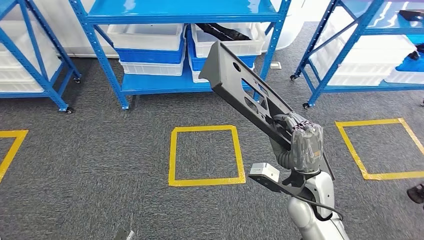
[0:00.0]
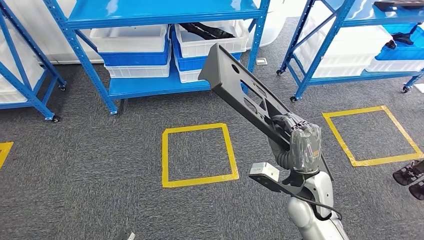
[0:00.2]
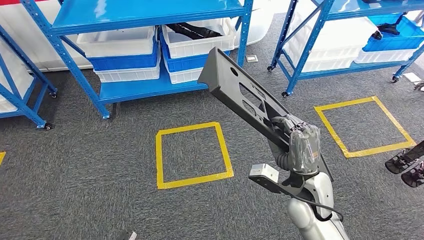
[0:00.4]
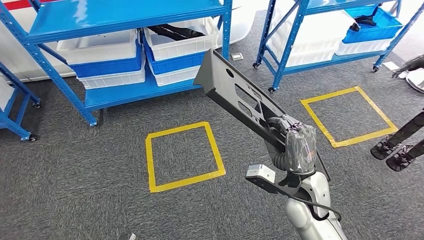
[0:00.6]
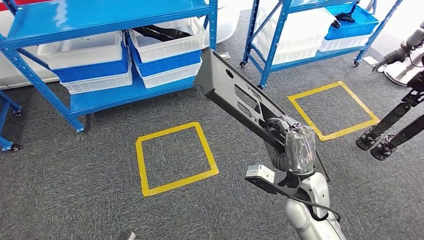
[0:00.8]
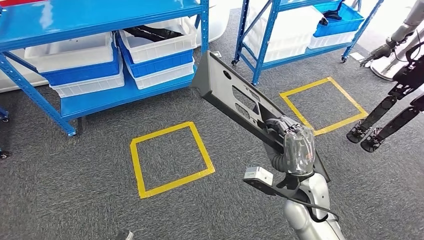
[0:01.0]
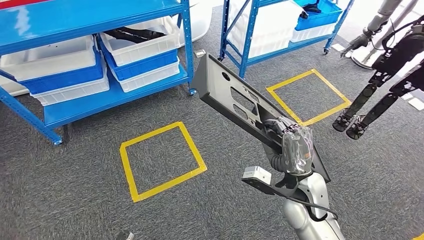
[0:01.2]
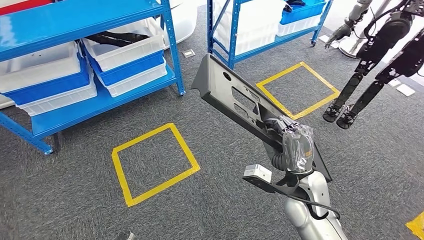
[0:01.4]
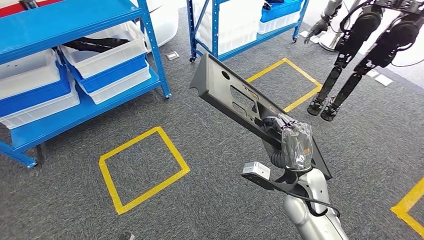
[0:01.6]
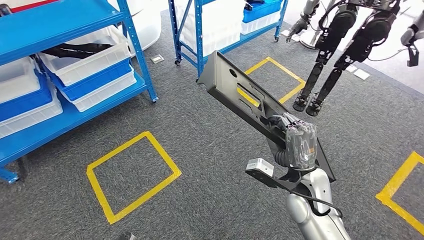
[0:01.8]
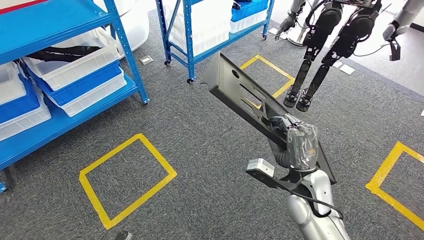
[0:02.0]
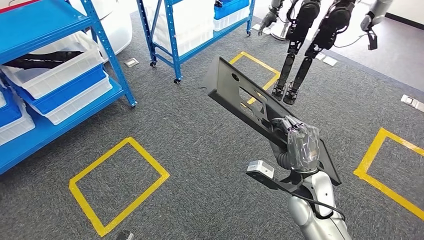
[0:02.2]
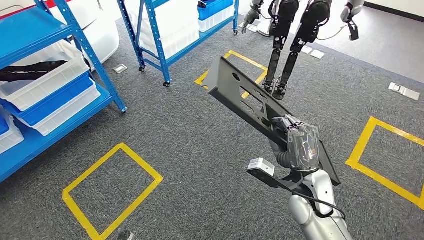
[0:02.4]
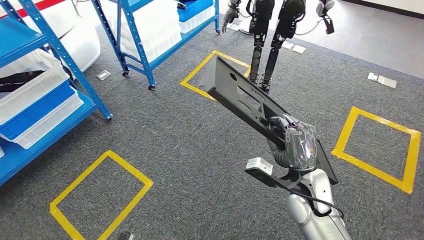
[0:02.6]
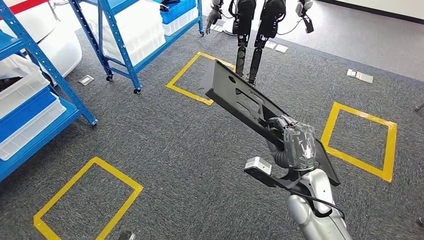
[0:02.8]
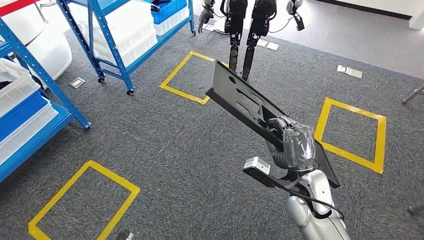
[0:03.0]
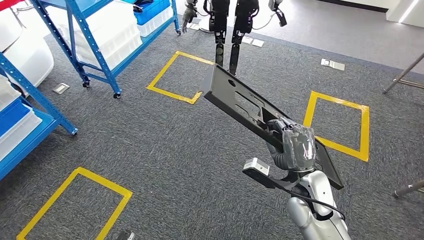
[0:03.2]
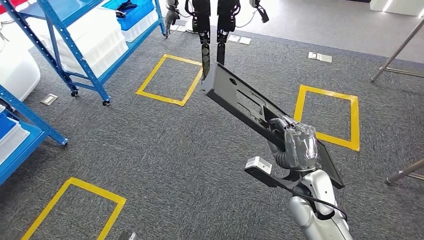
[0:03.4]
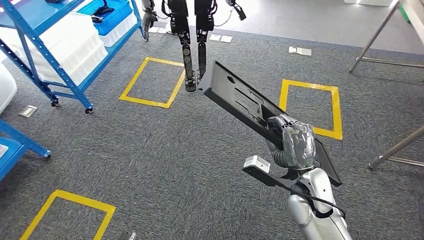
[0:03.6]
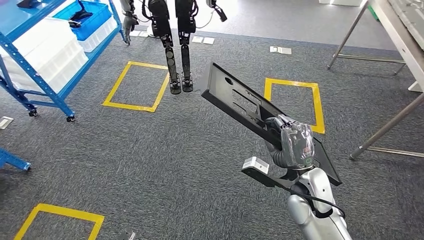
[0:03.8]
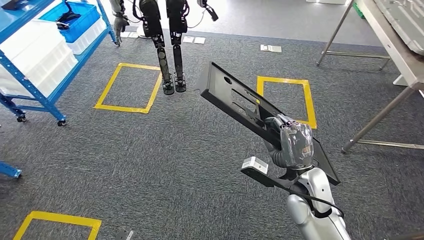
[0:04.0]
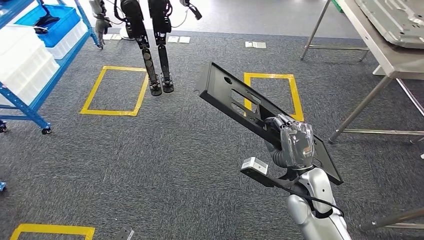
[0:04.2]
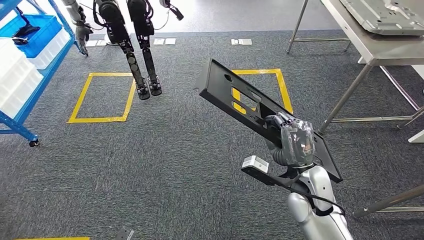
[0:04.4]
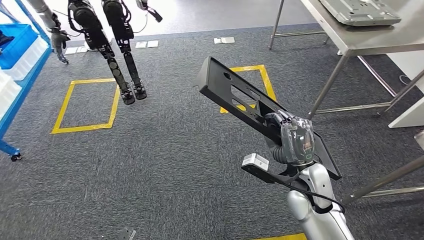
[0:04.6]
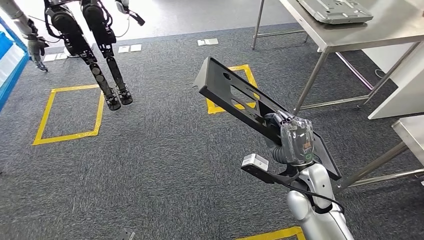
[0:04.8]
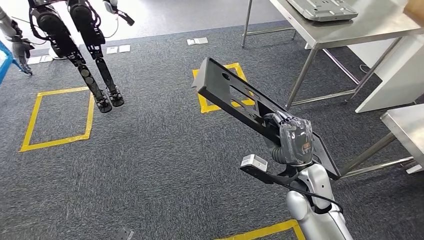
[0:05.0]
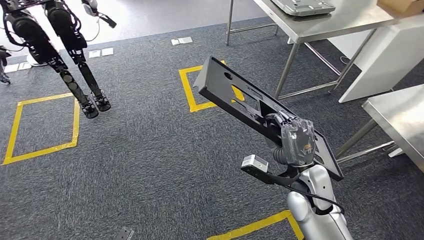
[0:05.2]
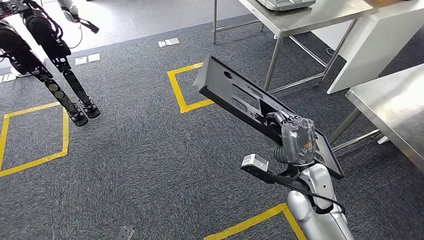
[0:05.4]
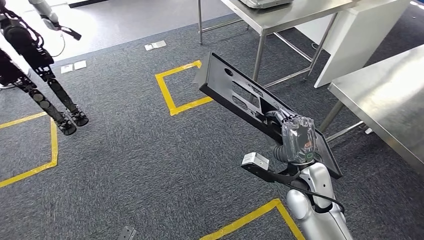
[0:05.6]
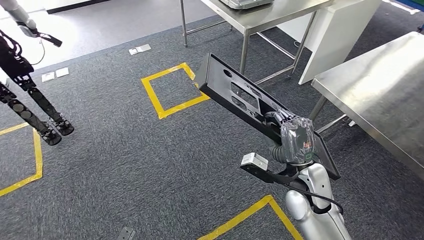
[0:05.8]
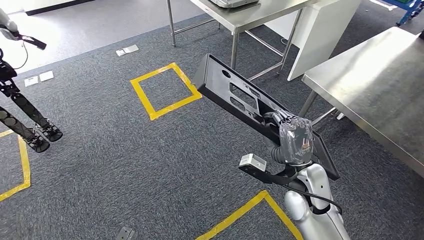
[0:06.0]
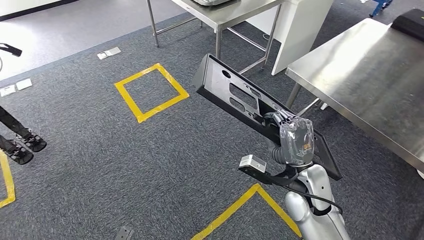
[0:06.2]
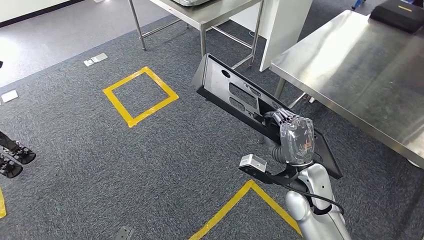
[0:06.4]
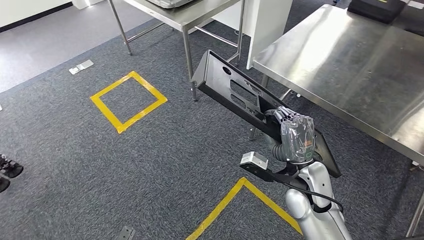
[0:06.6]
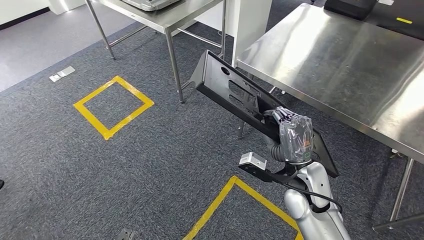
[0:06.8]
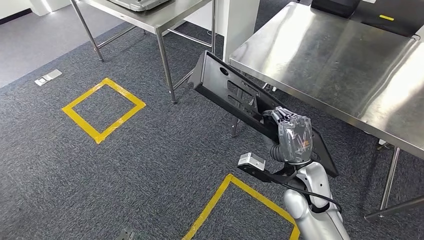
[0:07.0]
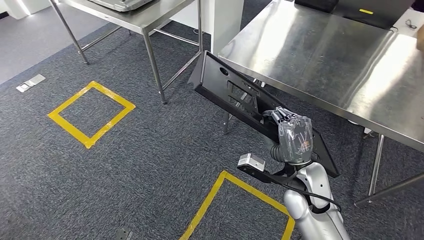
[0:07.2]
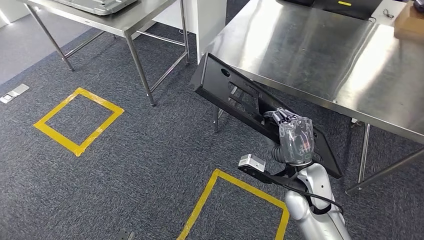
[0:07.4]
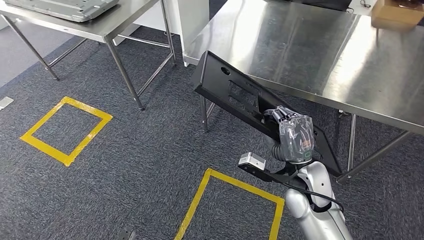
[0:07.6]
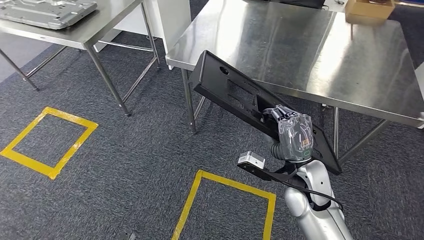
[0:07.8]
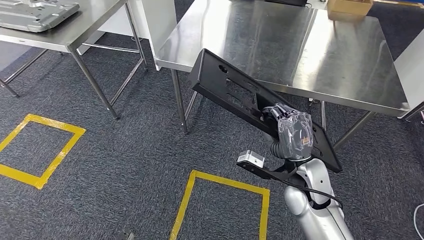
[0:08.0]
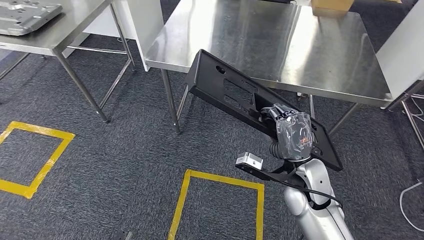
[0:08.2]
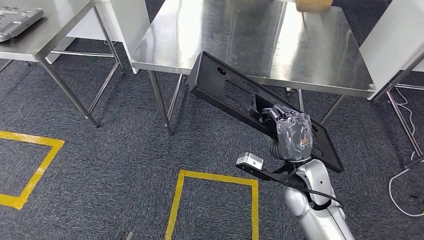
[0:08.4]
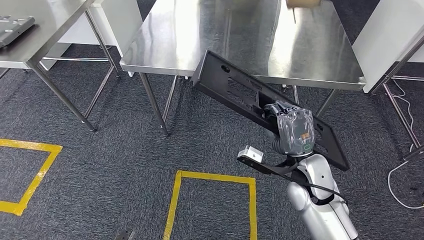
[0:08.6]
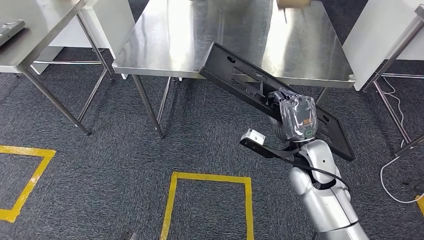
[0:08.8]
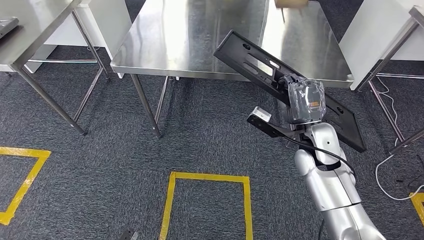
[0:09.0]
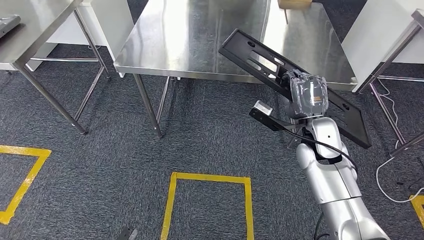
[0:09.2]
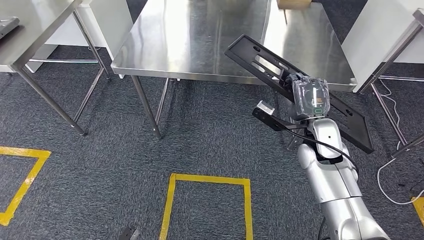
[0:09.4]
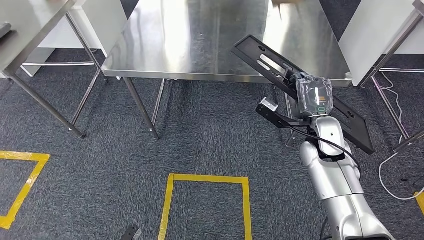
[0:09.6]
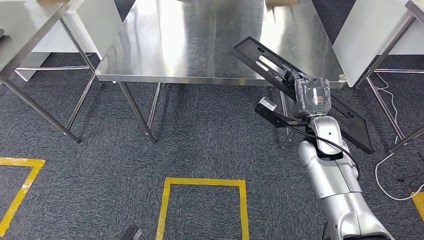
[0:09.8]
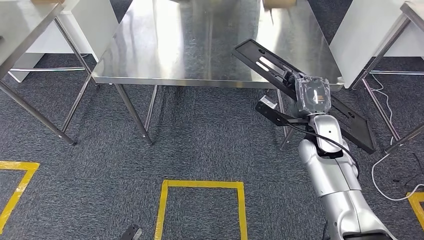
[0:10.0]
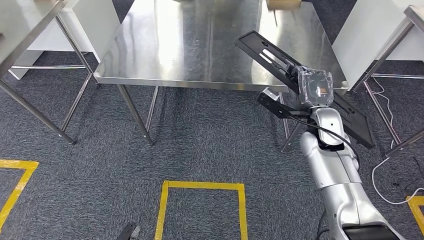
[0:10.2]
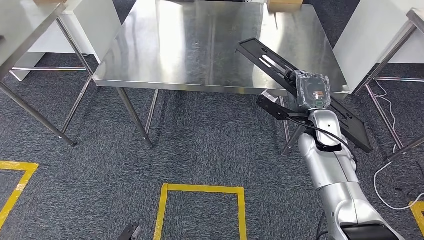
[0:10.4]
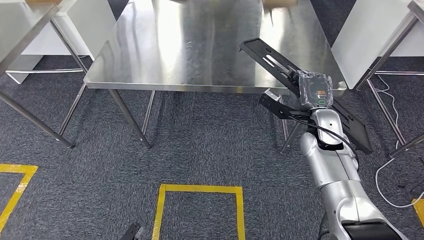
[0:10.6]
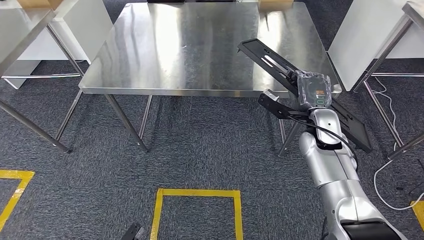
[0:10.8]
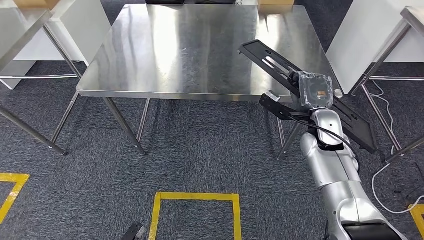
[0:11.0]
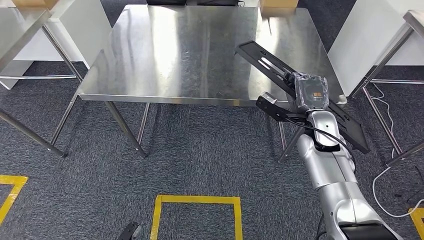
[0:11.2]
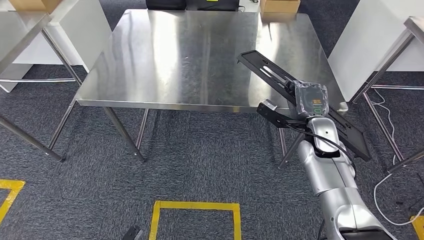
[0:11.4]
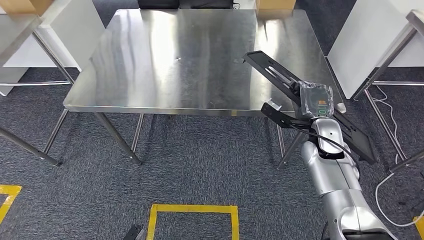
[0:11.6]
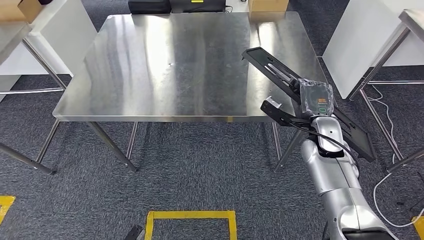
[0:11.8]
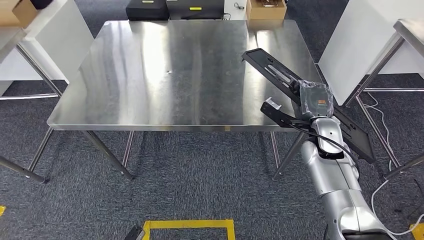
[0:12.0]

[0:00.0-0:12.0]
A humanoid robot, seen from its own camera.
Step, 0:00.0 to 0:11.2: Move the large material to the workbench.

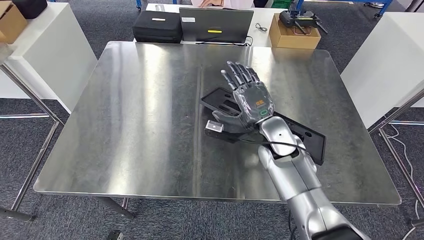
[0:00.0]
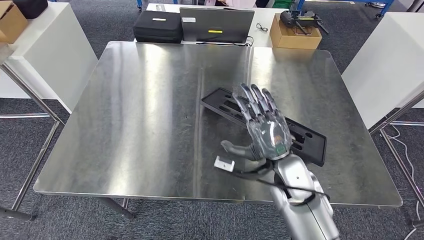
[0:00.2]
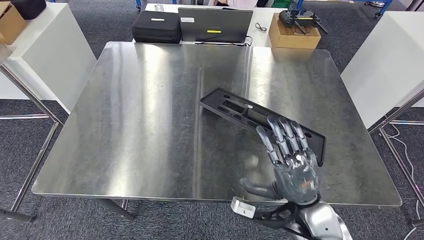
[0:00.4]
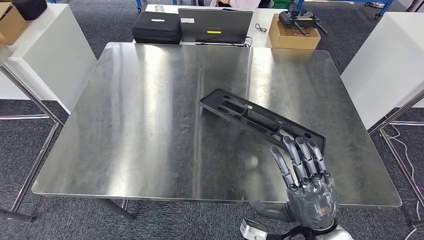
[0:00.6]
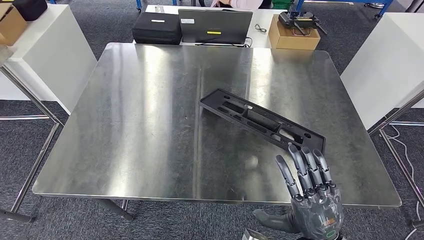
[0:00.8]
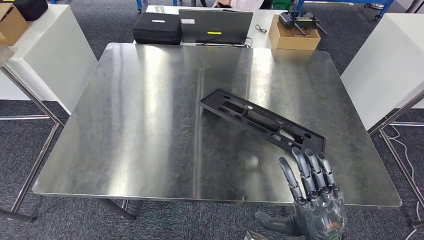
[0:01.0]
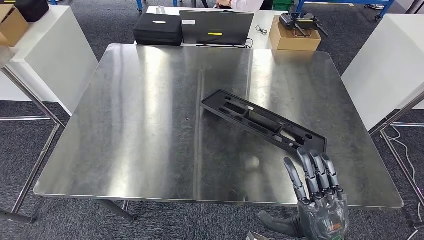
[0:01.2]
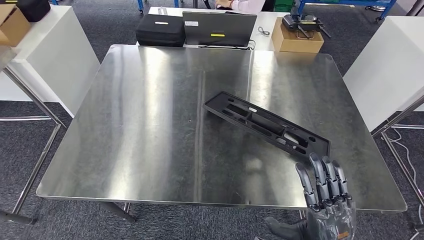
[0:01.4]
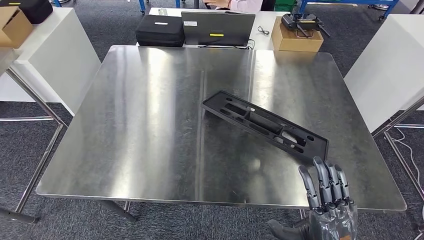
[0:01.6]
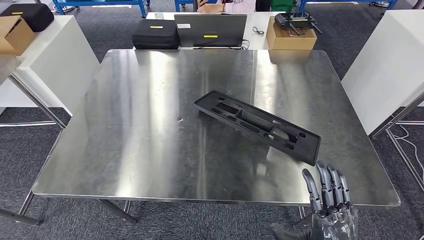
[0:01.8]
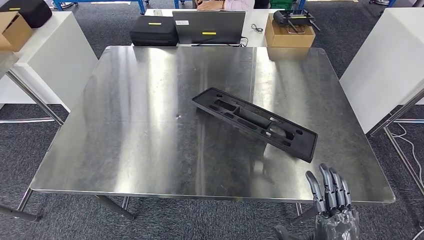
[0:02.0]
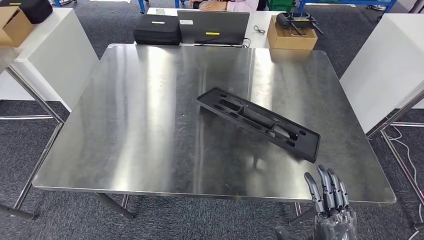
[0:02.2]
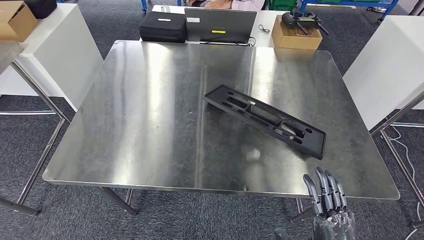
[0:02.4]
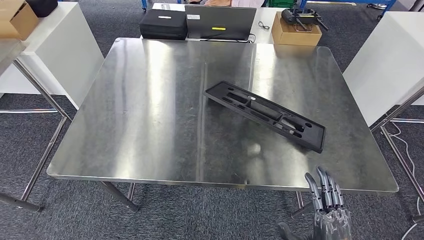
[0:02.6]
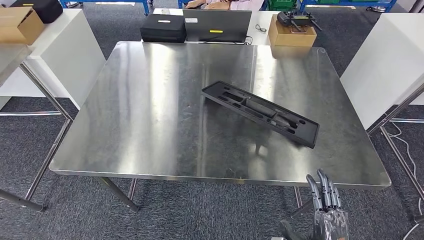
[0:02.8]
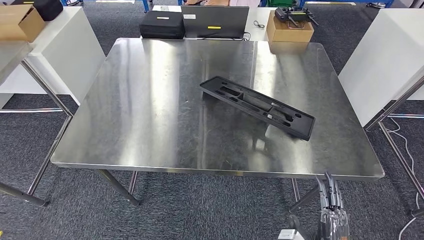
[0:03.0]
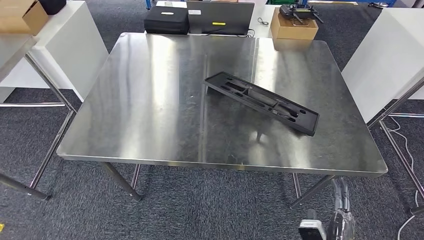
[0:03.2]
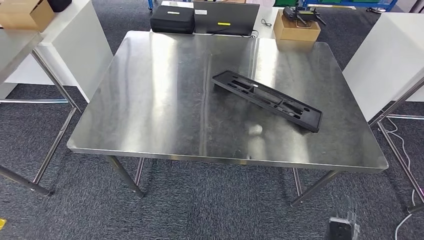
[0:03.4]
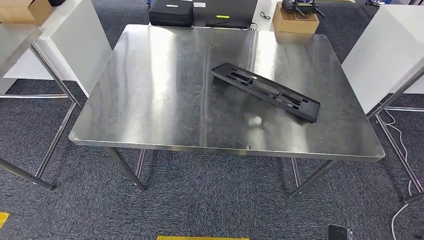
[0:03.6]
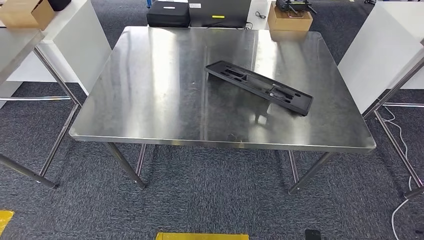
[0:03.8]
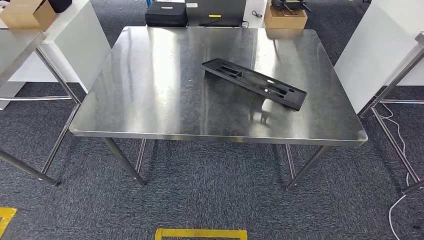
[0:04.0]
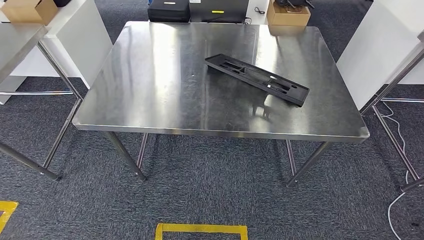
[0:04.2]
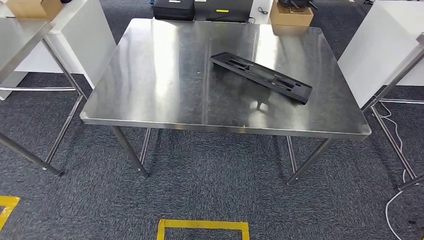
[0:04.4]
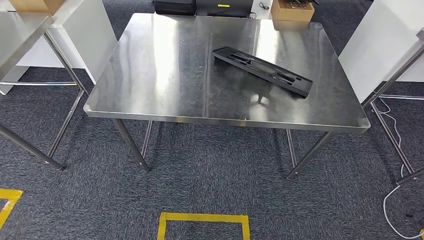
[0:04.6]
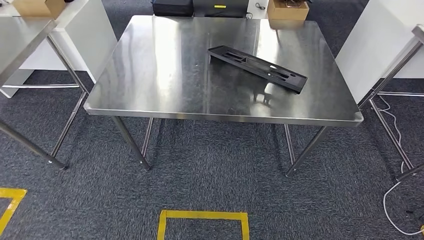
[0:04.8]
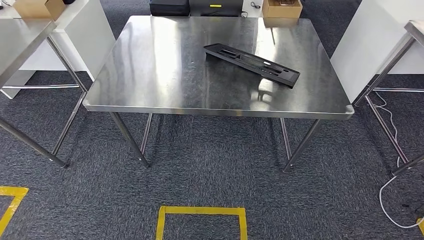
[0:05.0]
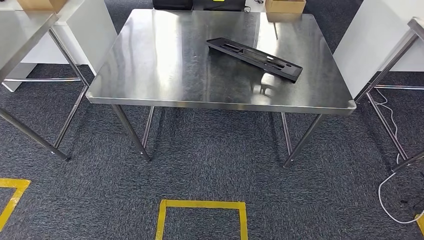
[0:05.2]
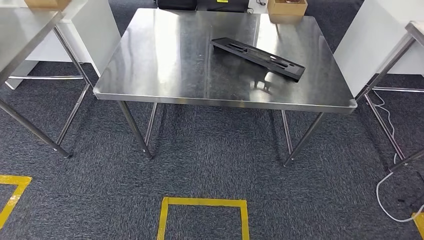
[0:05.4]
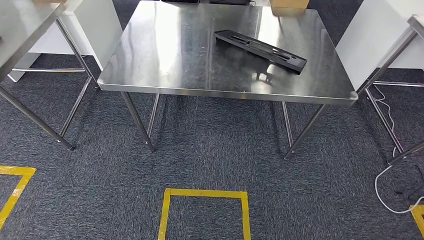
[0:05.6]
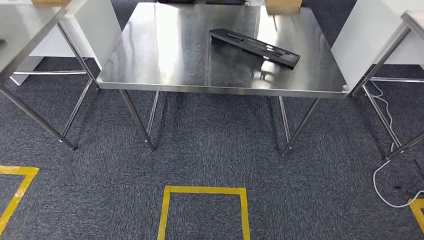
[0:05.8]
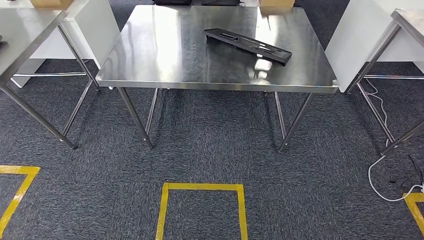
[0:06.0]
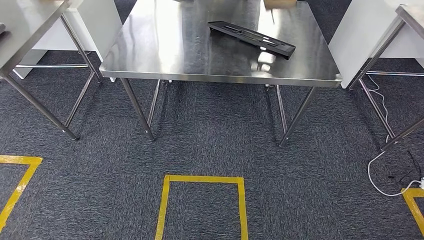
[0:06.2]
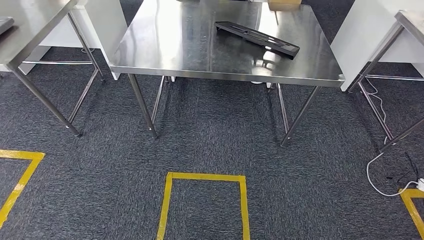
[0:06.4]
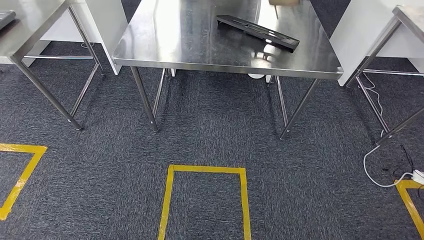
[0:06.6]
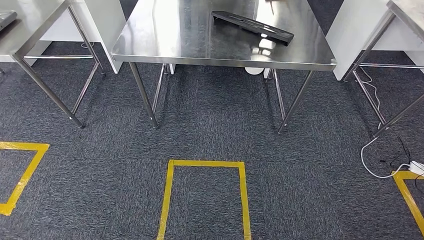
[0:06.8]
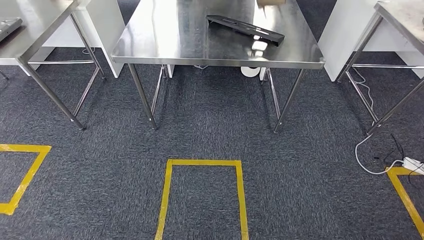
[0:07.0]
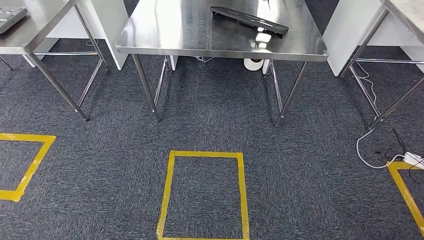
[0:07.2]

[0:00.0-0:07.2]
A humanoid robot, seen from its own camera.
Step, 0:00.0 to 0:04.8: Insert the large material into the corresponding slot on the workbench.
